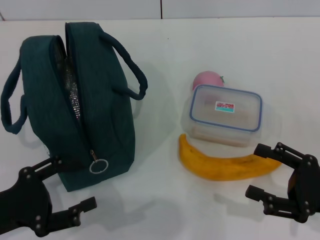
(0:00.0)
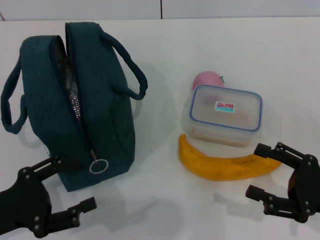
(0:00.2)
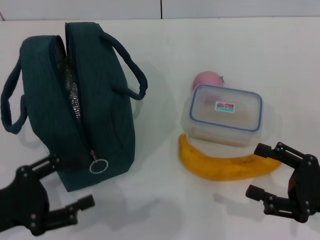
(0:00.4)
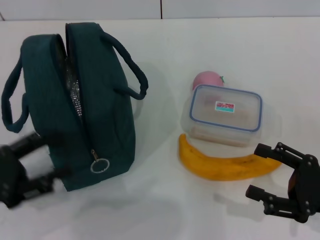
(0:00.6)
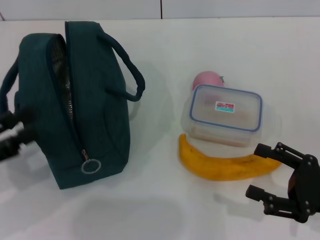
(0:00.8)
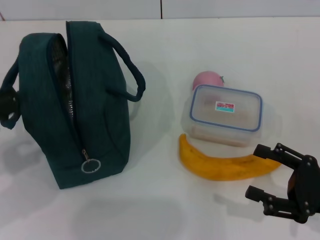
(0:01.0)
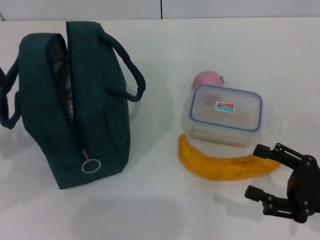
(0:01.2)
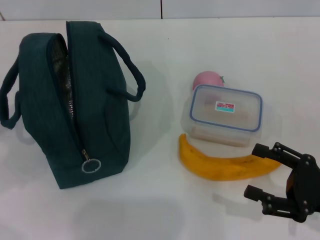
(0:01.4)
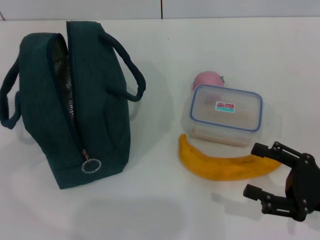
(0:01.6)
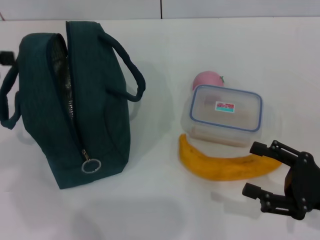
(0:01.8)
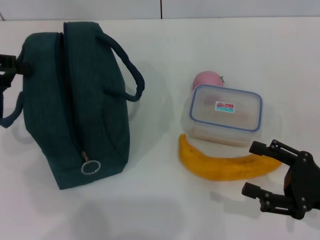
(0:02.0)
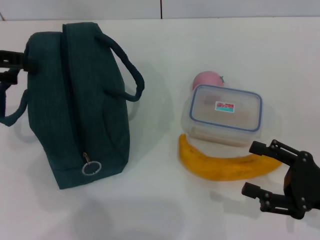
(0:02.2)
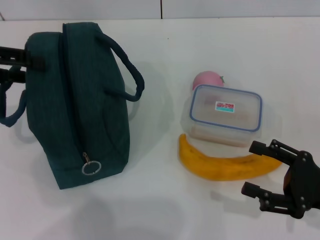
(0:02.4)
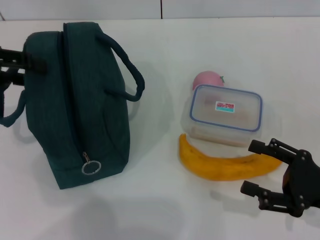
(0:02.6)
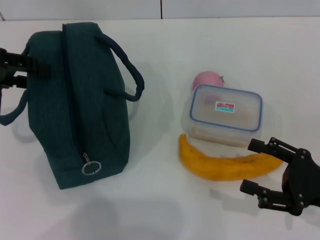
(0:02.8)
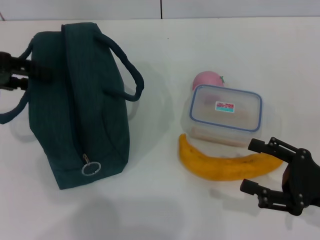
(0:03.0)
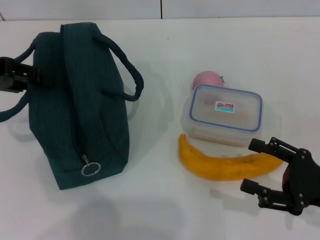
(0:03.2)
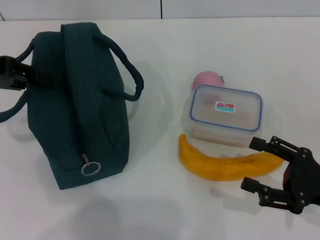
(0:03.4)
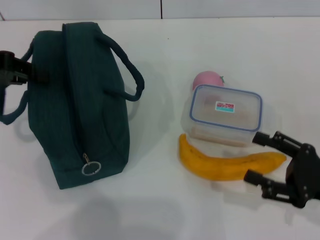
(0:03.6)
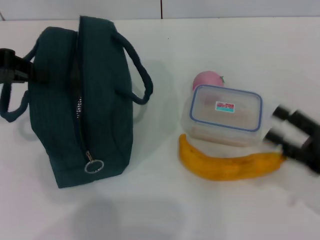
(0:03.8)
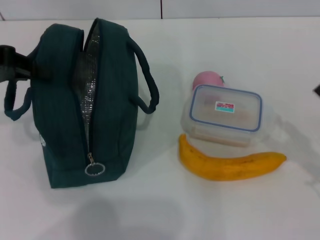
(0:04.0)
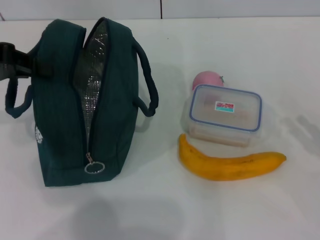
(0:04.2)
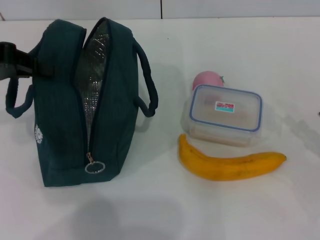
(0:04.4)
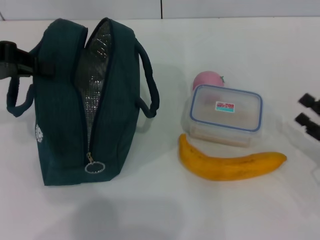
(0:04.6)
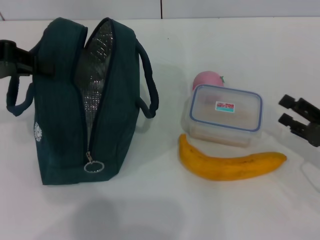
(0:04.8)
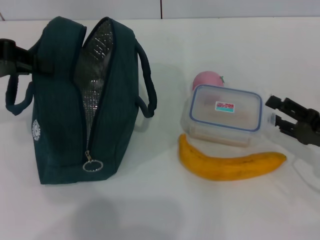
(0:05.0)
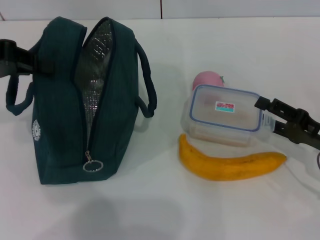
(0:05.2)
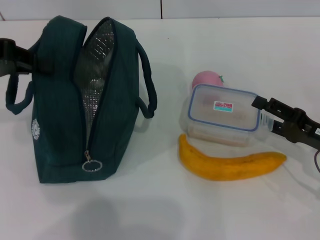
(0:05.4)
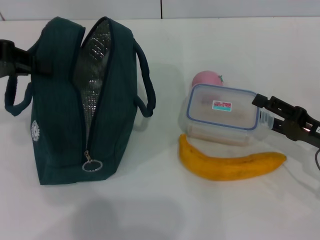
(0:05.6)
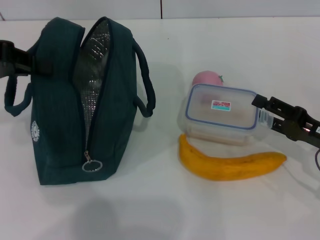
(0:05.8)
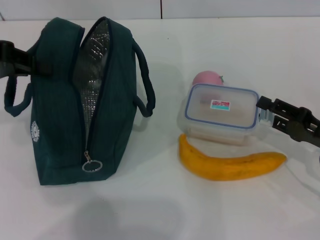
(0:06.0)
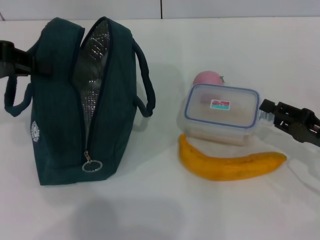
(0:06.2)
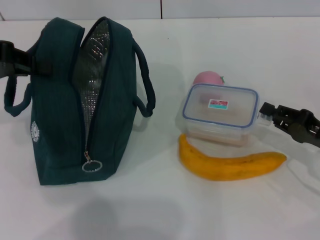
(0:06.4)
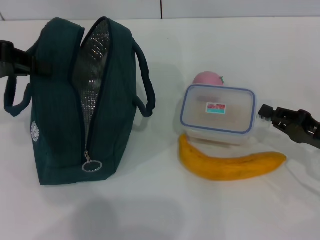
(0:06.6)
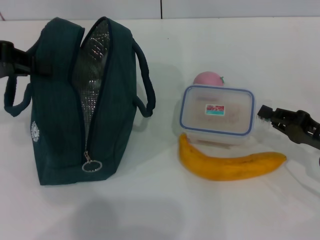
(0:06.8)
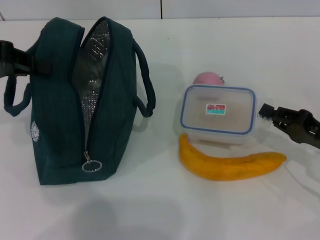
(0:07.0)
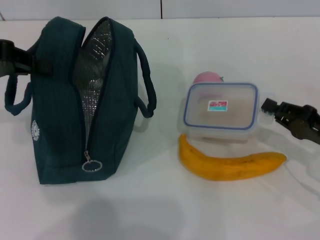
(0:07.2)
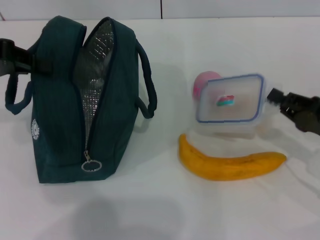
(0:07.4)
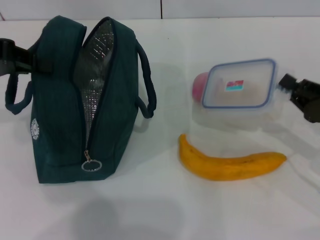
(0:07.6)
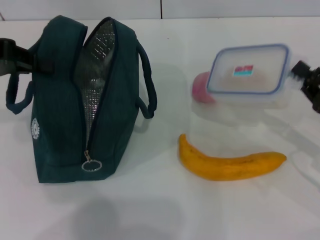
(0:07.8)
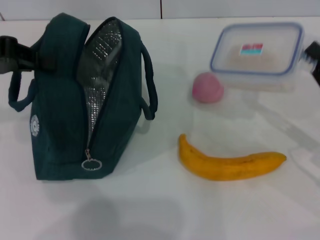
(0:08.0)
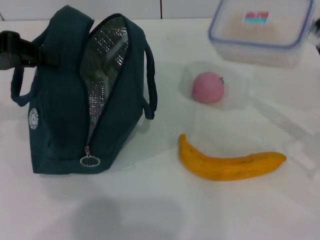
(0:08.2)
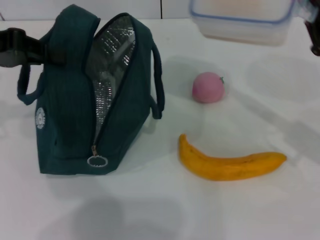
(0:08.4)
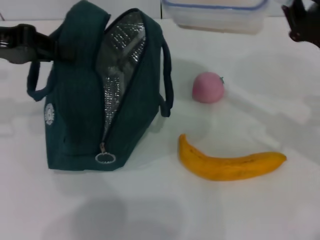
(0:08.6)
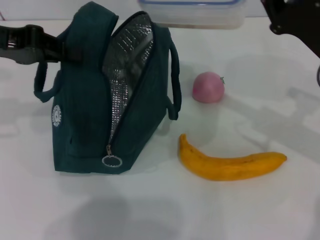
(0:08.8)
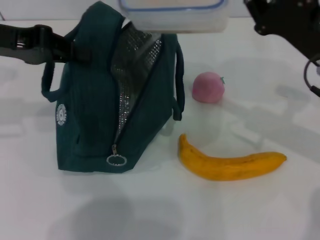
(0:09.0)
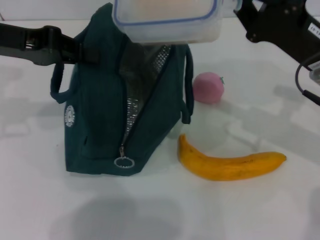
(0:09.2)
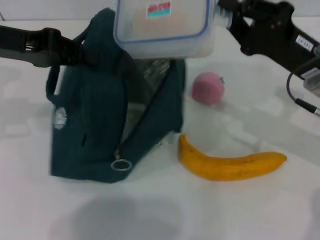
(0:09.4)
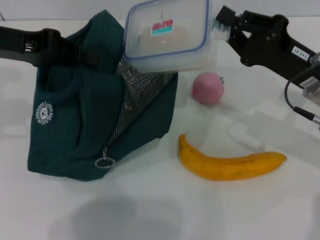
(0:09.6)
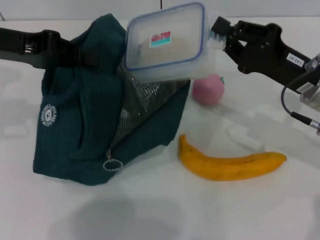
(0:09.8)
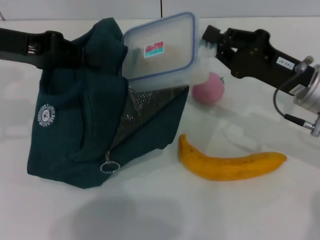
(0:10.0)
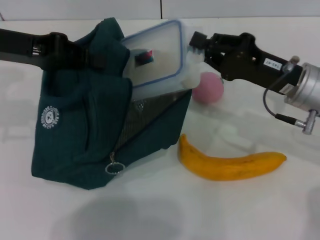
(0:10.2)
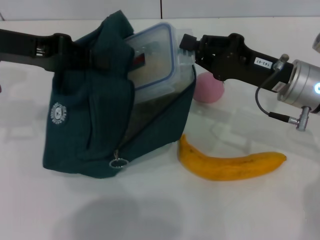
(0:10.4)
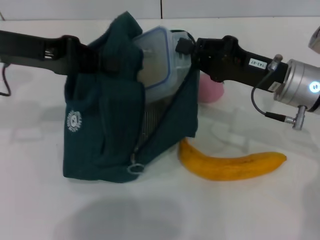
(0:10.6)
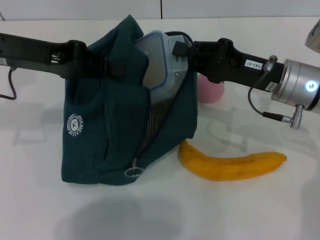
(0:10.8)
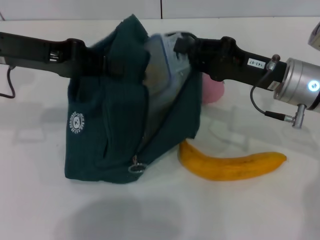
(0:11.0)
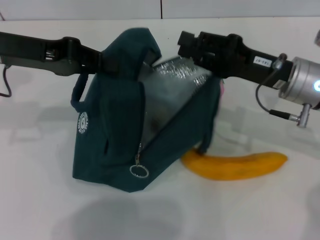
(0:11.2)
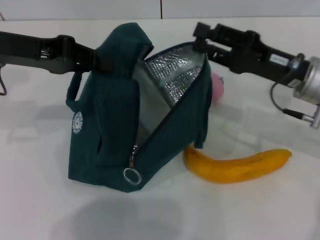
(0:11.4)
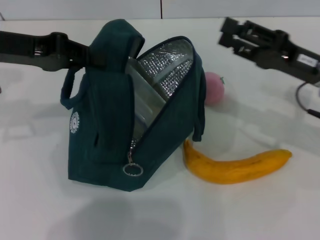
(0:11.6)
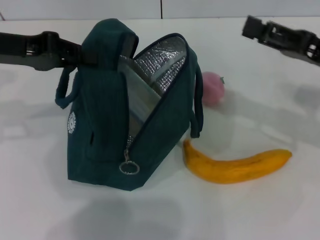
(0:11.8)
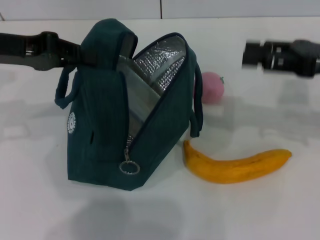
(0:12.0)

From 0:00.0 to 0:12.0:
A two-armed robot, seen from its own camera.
Step, from 0:00.0 to 0:03.6: Hold the lunch bag with your left hand.
Step, from 0:04.0 to 0:07.2: Pick up the lunch box with your right hand.
Step, from 0:07.4 to 0:11.0: Place the lunch box into the lunch bag with your right hand.
From 0:00.0 to 0:01.6: The left gripper travels upward, forward and to the left by some 20 cm.
From 0:01.6 to 0:03.0: The left gripper travels to the right and forward by approximately 10 cm.
From 0:03.0 to 0:04.4: The left gripper closes. Meanwhile the right gripper shifts some 5 cm to the right.
From 0:04.4 to 0:06.0: The right gripper heads forward and to the left, covering approximately 10 cm.
From 0:06.0 to 0:07.6: The right gripper closes its fingers.
From 0:07.6 to 0:09.0: The right gripper shifts roughly 15 cm to the left, upward and forward.
From 0:10.4 to 0:12.0: The right gripper moves to the right and upward, roughly 10 cm, and opens up.

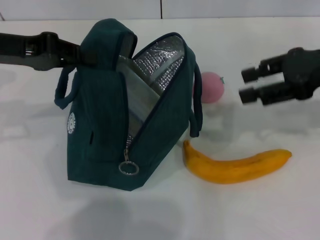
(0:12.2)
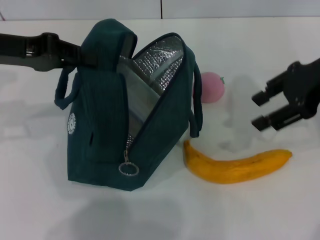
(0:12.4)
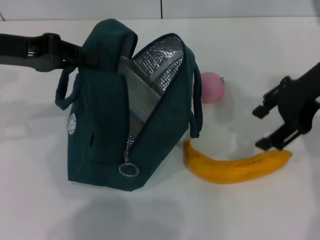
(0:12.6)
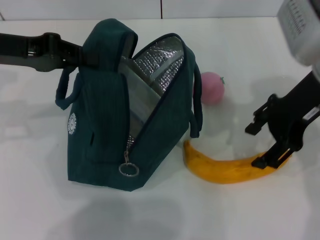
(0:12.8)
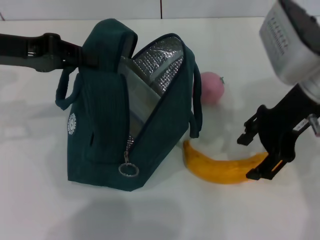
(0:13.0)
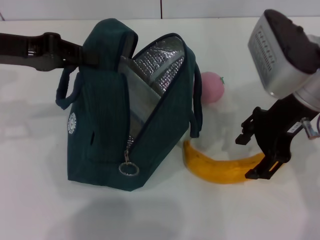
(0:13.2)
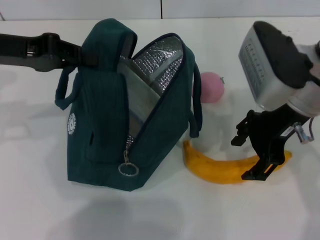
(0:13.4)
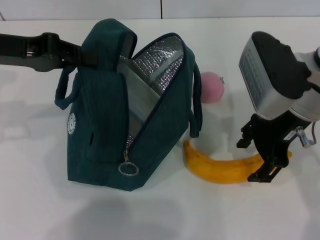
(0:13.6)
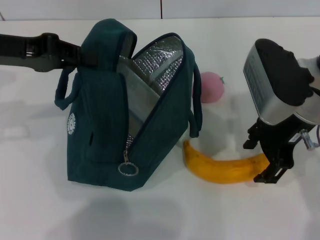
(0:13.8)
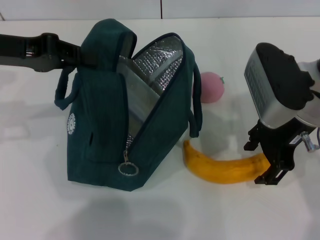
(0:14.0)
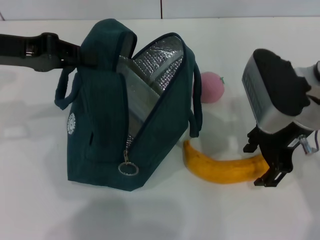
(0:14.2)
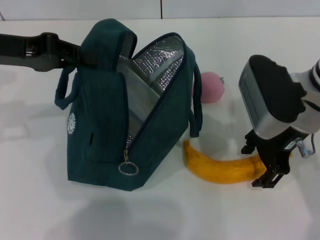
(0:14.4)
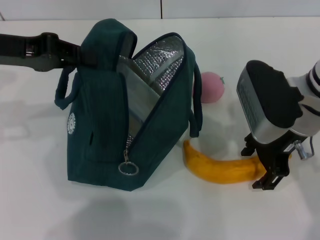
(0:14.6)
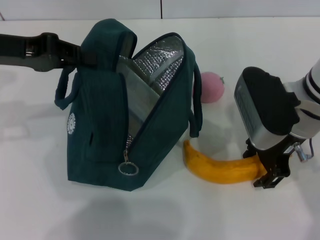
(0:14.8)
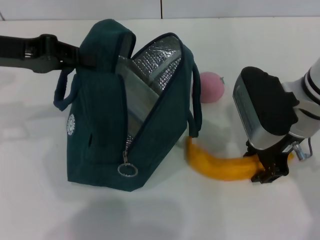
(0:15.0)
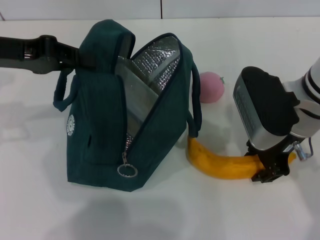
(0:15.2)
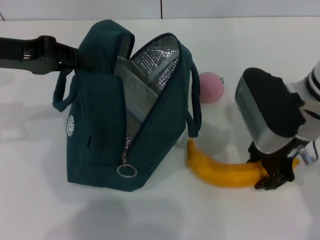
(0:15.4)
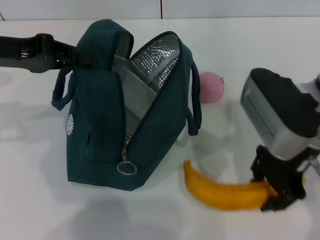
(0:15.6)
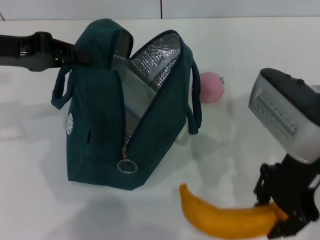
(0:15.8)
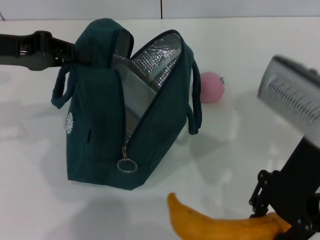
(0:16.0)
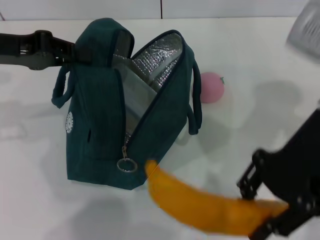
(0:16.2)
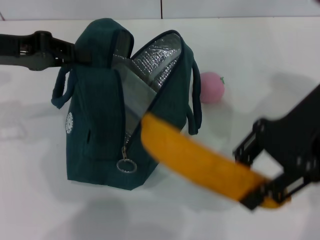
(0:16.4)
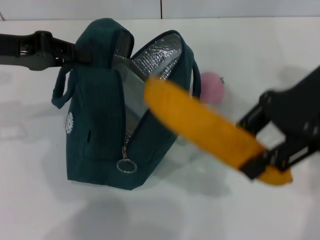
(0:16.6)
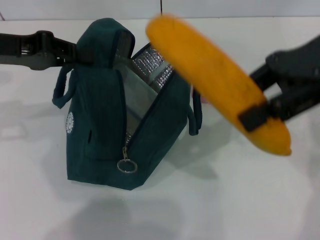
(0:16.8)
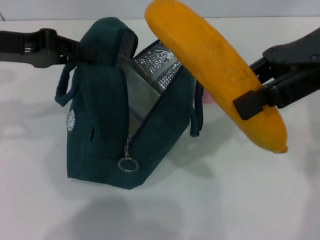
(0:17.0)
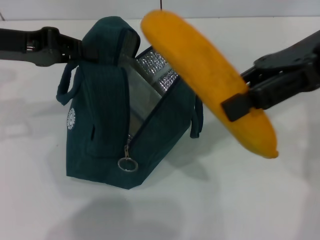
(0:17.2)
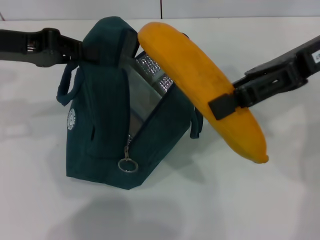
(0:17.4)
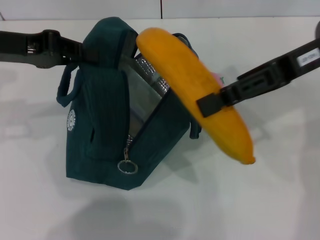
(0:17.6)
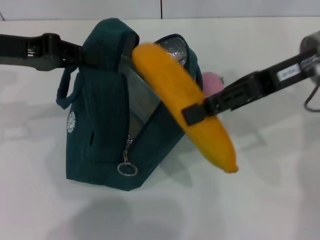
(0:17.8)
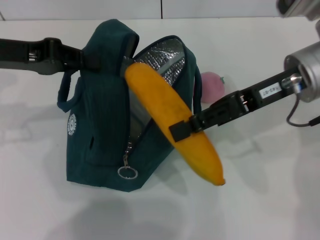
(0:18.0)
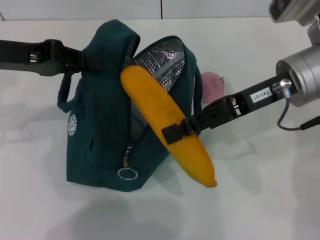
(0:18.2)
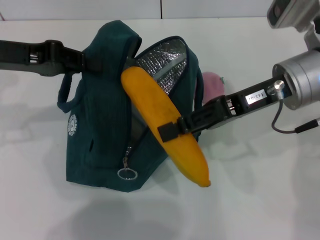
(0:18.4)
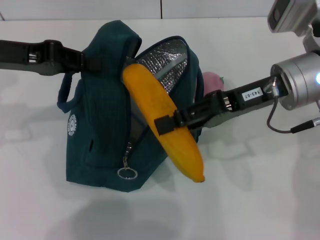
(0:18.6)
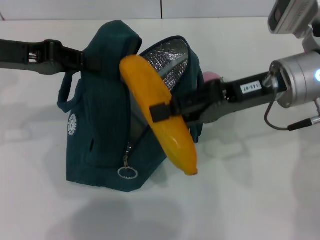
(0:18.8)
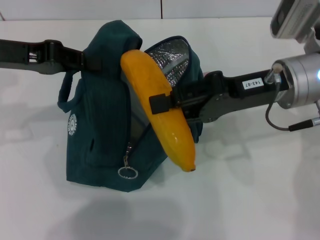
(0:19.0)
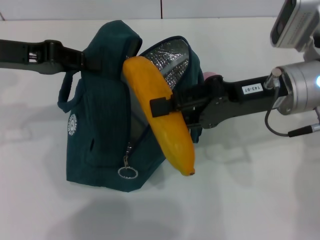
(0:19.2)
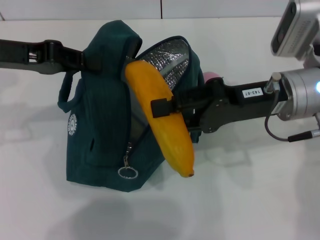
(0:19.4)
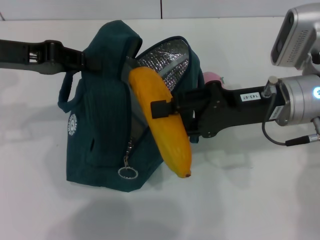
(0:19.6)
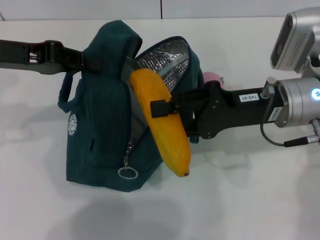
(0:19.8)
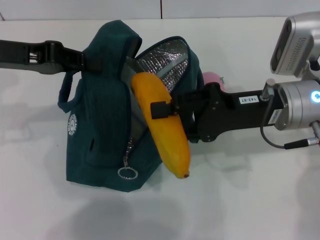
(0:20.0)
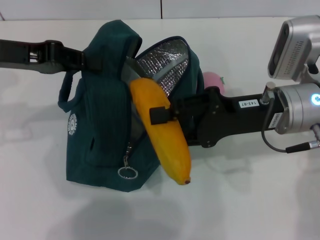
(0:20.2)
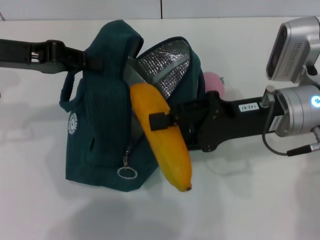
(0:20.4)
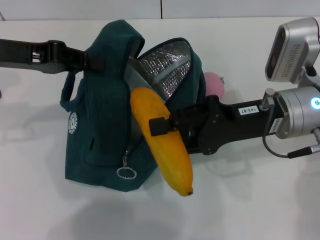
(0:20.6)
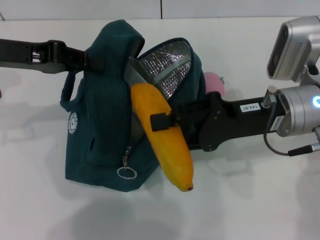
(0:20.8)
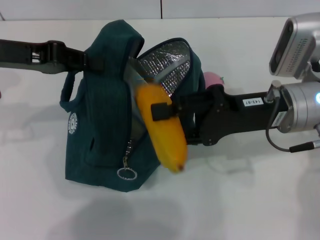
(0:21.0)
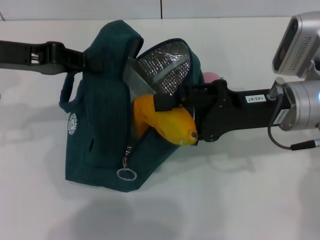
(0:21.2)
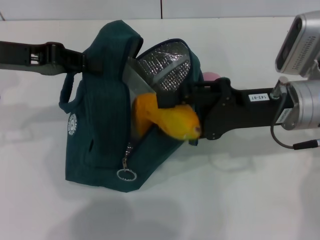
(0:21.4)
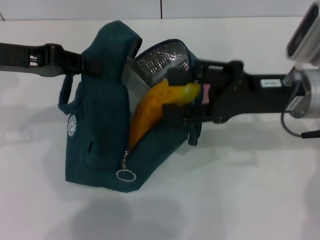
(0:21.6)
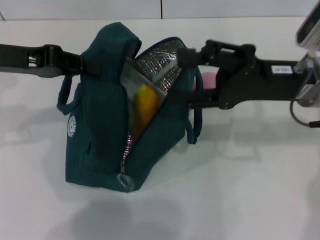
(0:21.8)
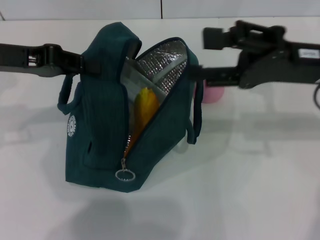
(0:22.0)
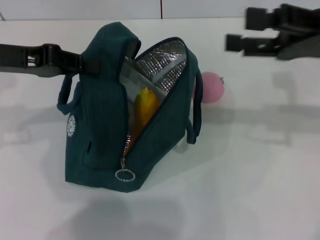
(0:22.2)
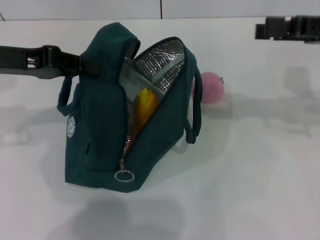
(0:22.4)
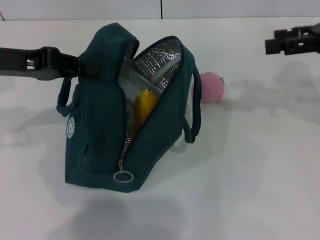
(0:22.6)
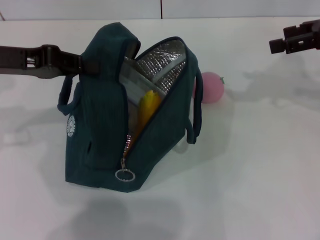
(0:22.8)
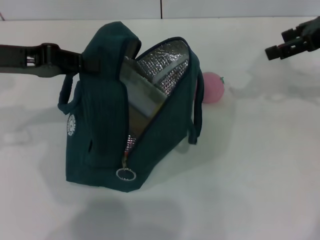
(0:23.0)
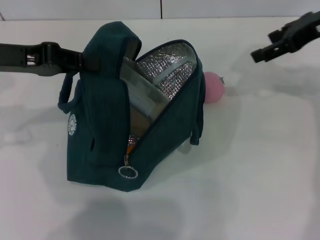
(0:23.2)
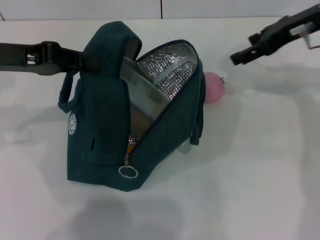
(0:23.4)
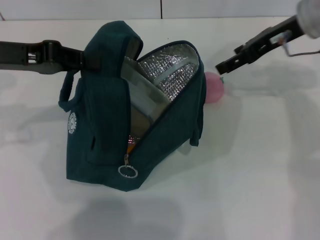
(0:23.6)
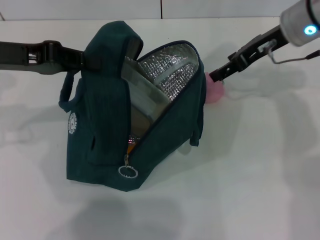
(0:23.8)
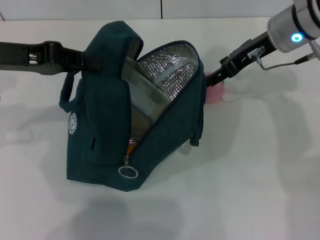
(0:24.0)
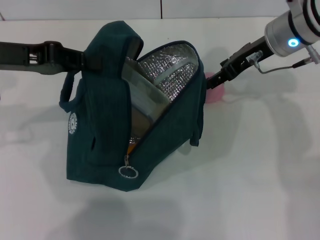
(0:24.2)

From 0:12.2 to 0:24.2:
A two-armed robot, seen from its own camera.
Step, from 0:12.2 to 0:15.2: Take the banana with your right hand.
Step, from 0:15.4 to 0:21.6: Put the banana into the lunch bag with your right hand.
From 0:12.2 to 0:13.8: The right gripper travels to the left by roughly 10 cm.
From 0:13.8 to 0:15.2: The grippers stay close to where they were, moving slightly.
From 0:15.2 to 0:16.6: The right gripper heads upward, covering about 10 cm.
From 0:16.6 to 0:18.2: The right gripper goes some 10 cm downward.
From 0:18.2 to 0:19.8: The right gripper ends up roughly 5 cm from where it was.
From 0:19.8 to 0:21.2: The grippers stay close to where they were, moving slightly.
From 0:21.2 to 0:22.6: The right gripper is displaced to the right and upward by about 15 cm.
From 0:22.6 to 0:24.2: The right gripper goes approximately 15 cm to the left and forward.
